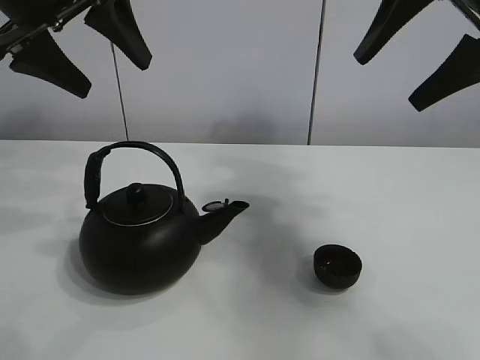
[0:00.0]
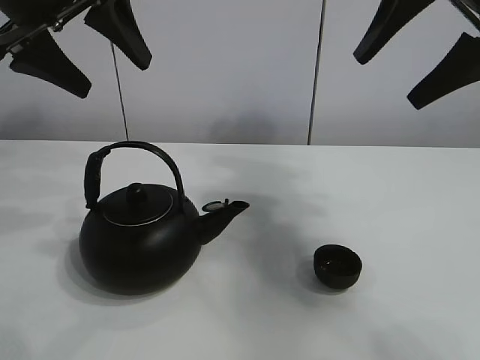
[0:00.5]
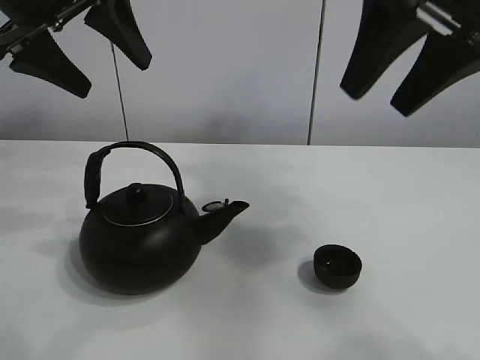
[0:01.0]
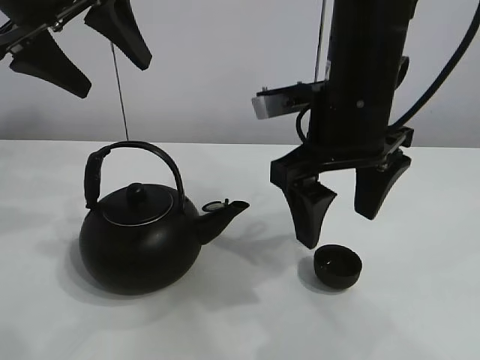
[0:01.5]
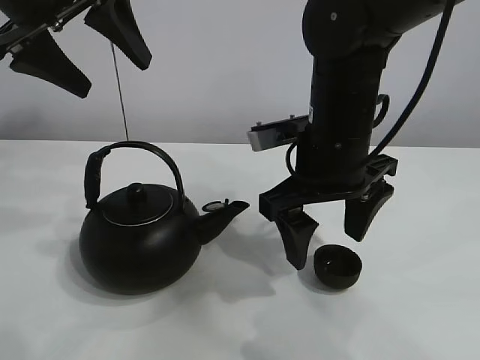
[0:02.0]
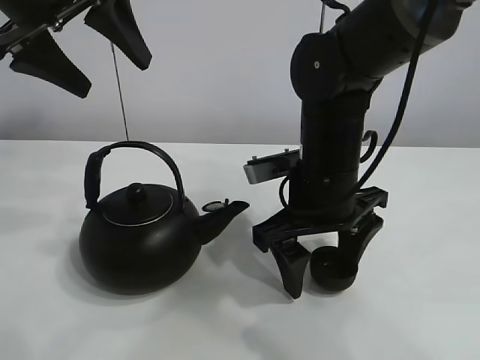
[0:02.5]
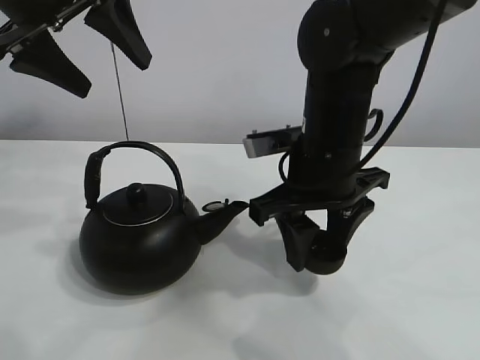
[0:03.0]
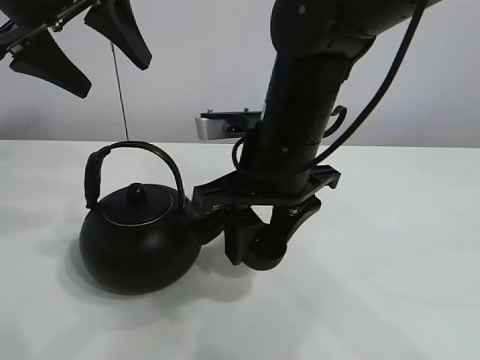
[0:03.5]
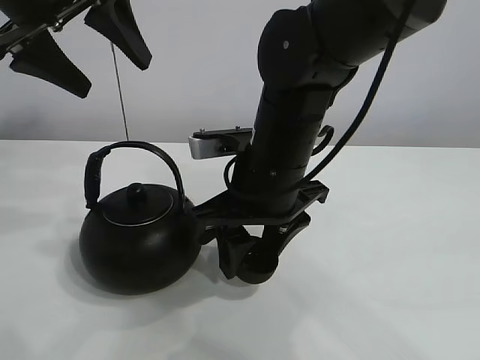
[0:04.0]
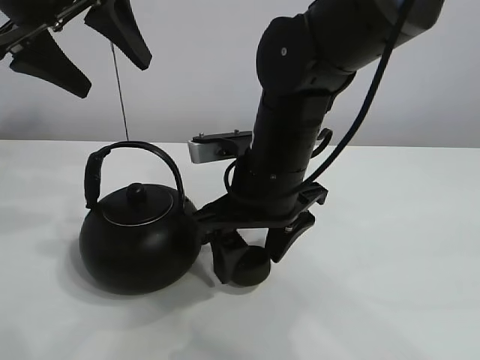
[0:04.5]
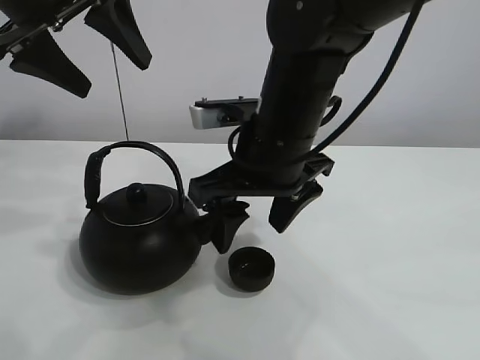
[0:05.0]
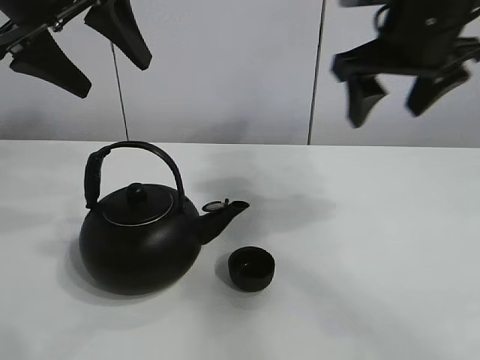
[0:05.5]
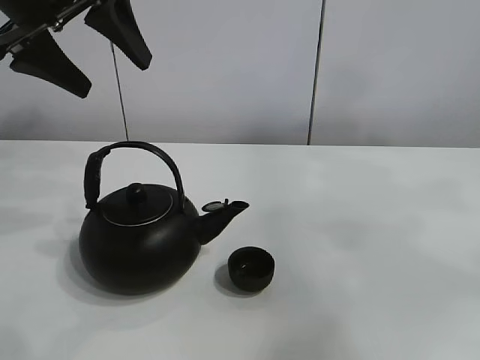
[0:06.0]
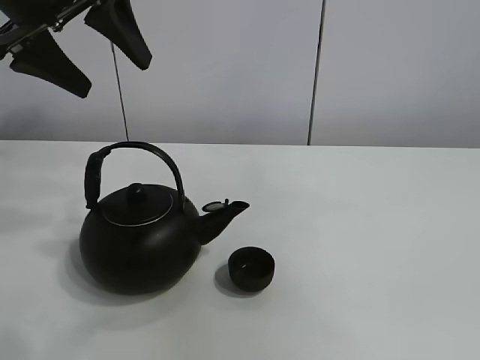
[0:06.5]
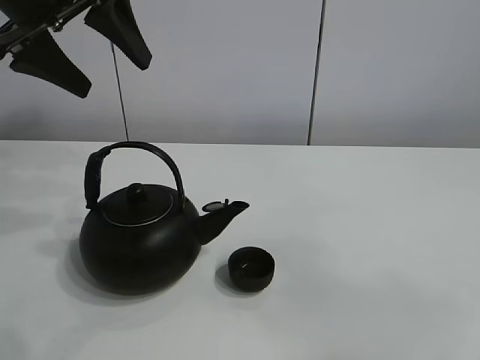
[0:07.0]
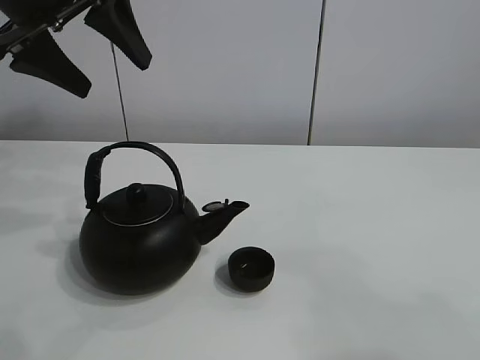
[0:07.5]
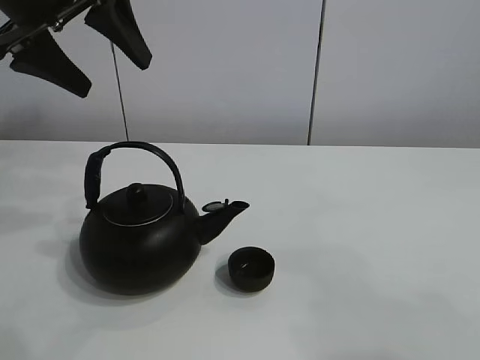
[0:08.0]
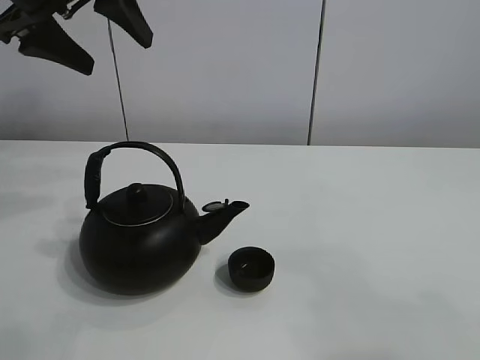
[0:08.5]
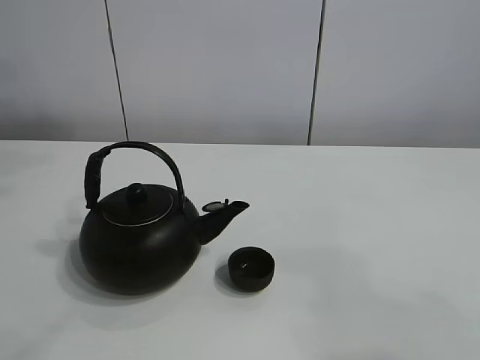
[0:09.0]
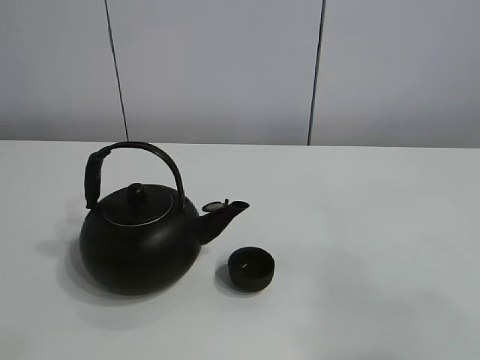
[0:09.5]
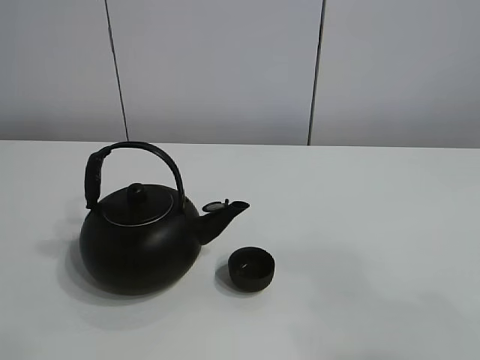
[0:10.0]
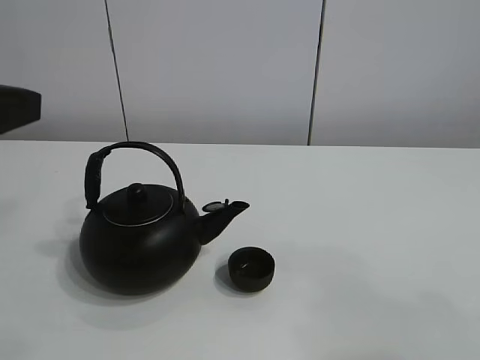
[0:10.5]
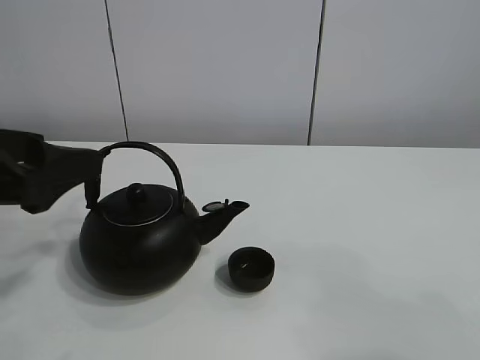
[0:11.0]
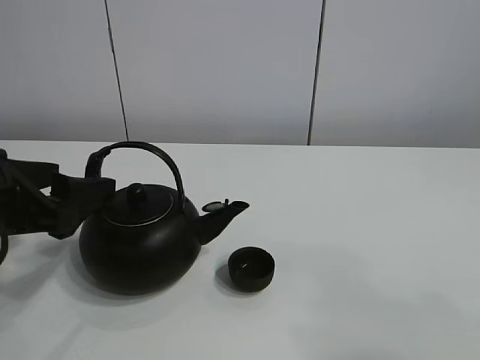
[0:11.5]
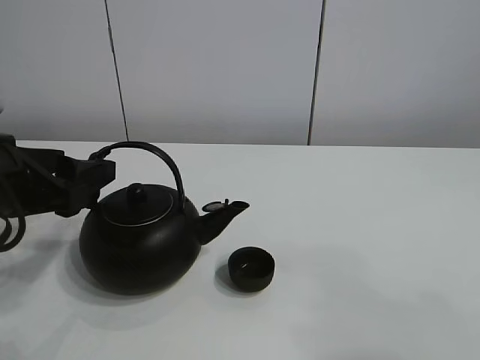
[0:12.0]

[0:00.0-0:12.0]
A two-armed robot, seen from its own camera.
Task of the whole recording: pour tea into the teacup.
Step, 0:00.0 to 0:02.5: Pick up the teacup with the right gripper.
Step, 0:03.0 to 0:04.5: Place the teacup in the center of view with the right gripper.
0:02.0 to 0:04.0: The right gripper travels to the left by some 5 cm, and closes its fingers.
0:04.0 to 0:06.0: The right gripper heads to the right and upward, covering roughly 50 cm, and opens its fingers.
0:06.0 to 0:08.0: The right gripper heads backward, downward and to the left, covering roughly 30 cm.
0:08.0 to 0:10.0: The left gripper is displaced backward by about 20 cm.
0:10.0 to 0:12.0: The left gripper moves downward, about 25 cm.

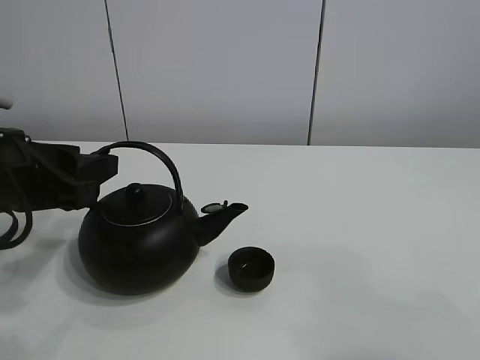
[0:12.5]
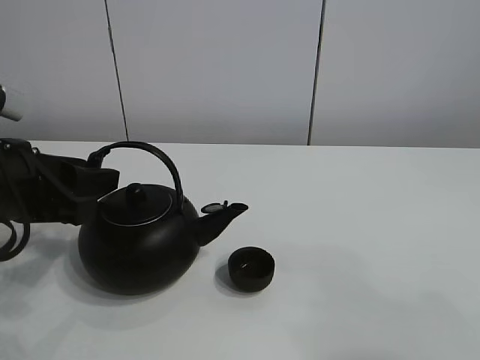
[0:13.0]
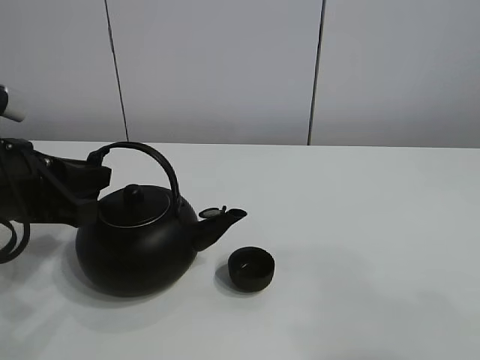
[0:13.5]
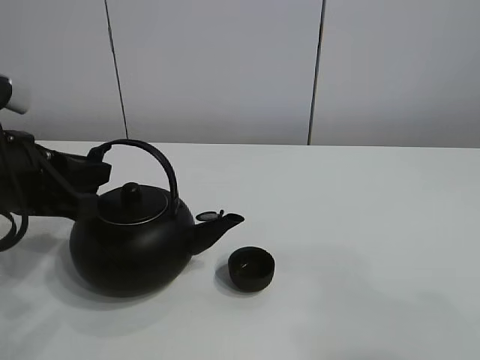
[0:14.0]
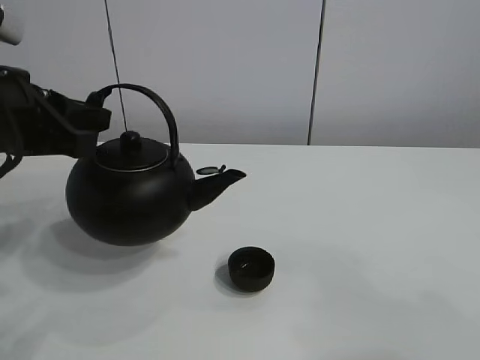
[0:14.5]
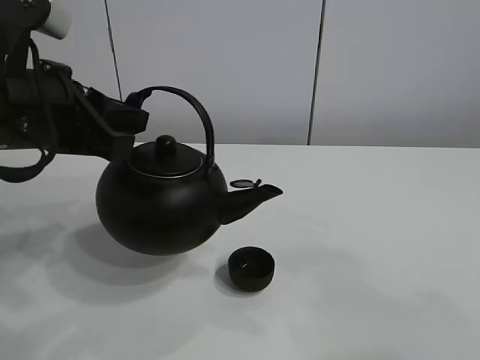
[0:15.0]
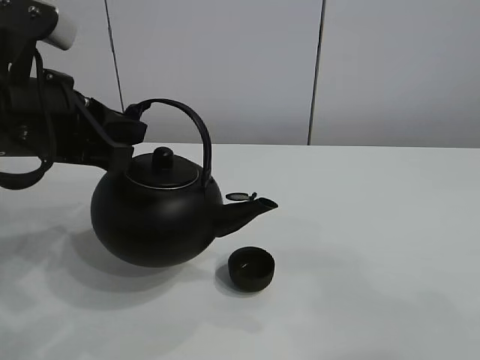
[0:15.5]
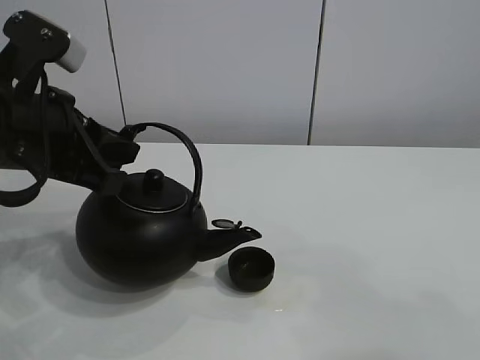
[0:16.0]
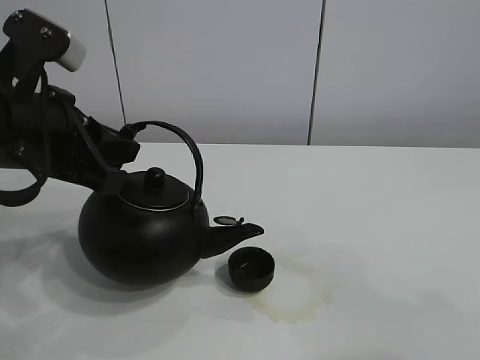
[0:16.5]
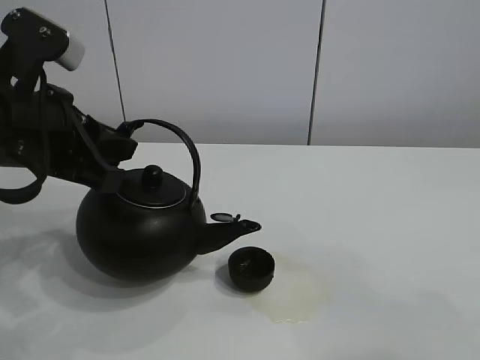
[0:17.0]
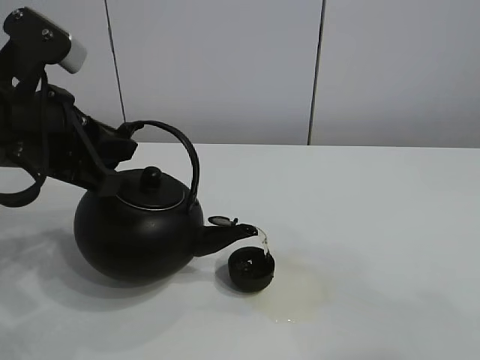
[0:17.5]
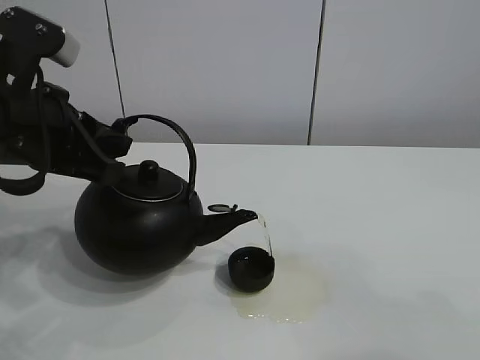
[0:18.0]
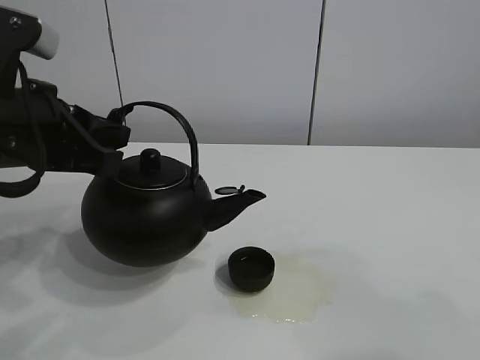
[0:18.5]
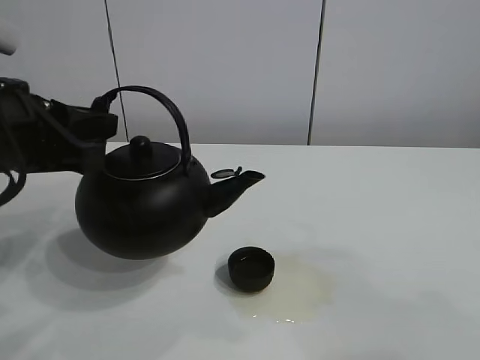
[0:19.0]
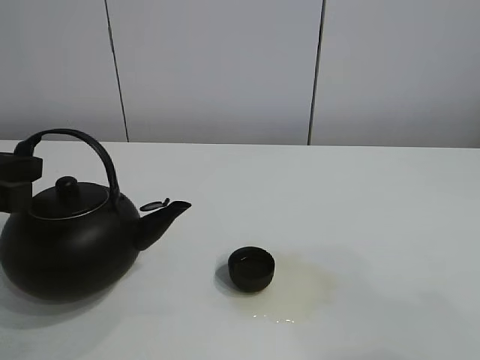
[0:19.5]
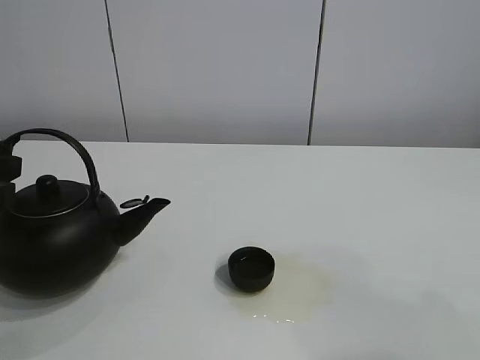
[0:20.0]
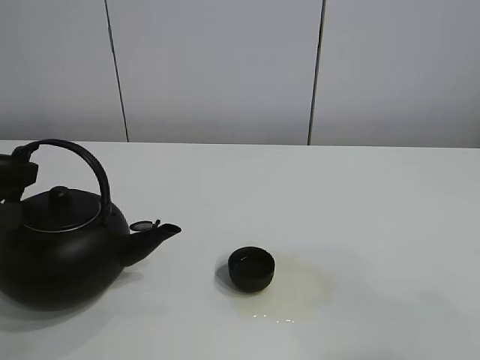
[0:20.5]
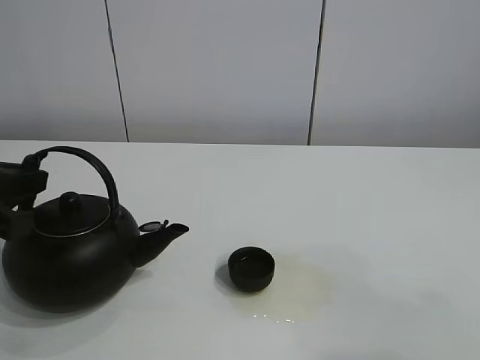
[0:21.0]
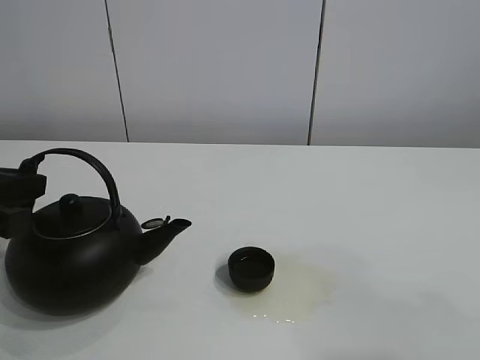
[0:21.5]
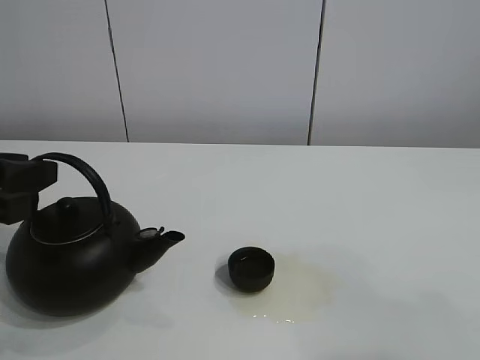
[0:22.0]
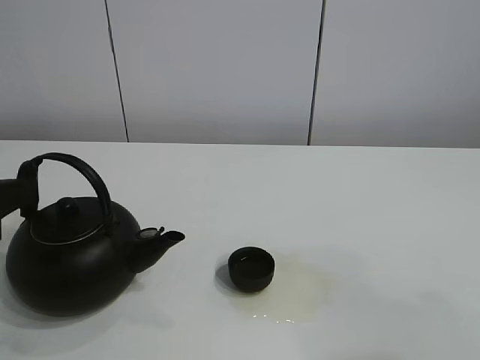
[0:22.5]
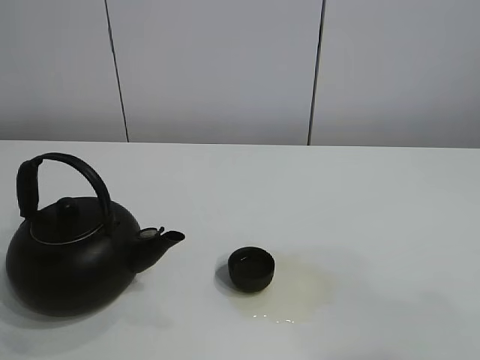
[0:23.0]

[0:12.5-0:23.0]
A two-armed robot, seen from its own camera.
Task of the whole recording: pour tea into the teacup.
Step, 0:14.5 to 0:18.0: Pour tea into the teacup with the left gripper.
0:12.5 to 0:14.5: The left gripper shifts some 5 cm upward, and closes its fingers.
0:14.5 to 0:19.0: The grippers make only small movements.
0:19.0 to 0:21.0: The left gripper shifts roughly 5 cm to the left.
0:21.0 to 0:23.0: The left gripper shifts by approximately 5 cm, and opens.

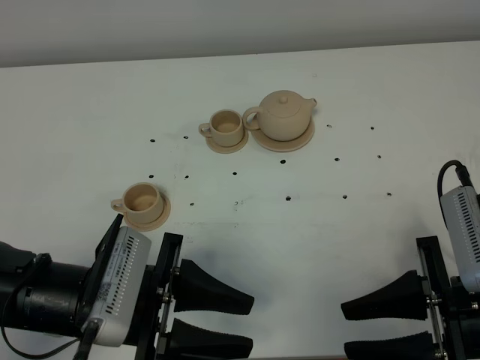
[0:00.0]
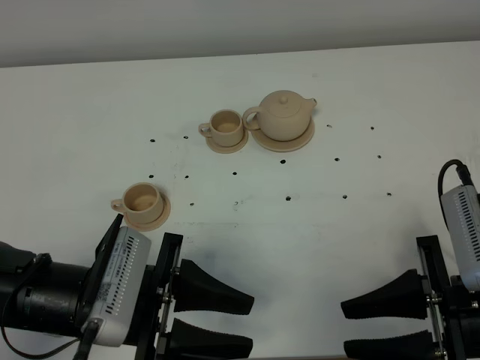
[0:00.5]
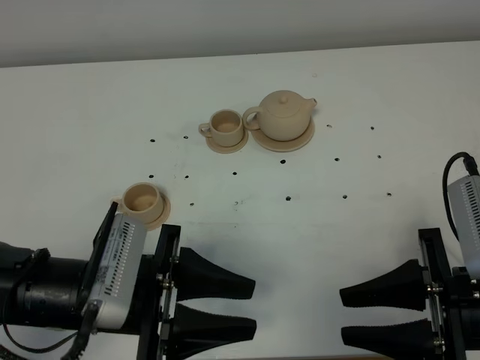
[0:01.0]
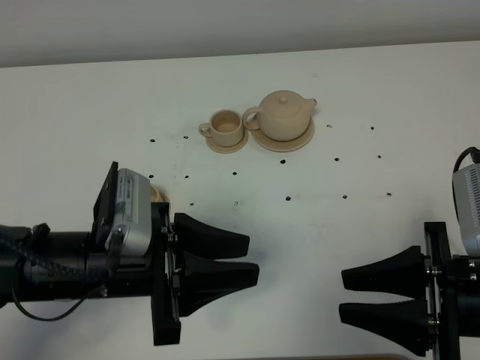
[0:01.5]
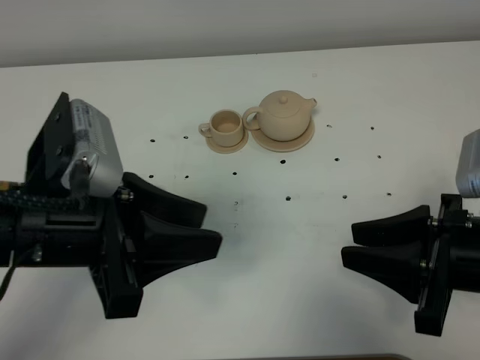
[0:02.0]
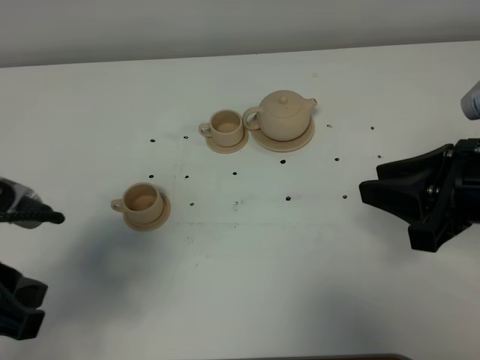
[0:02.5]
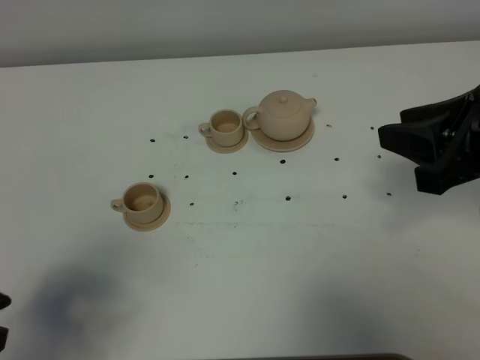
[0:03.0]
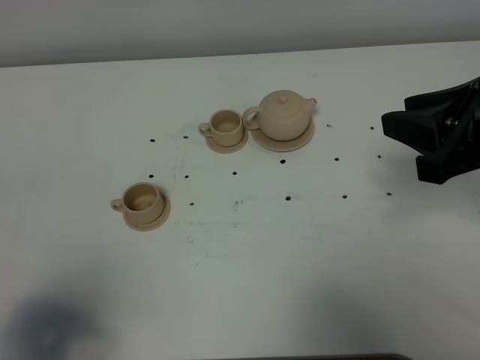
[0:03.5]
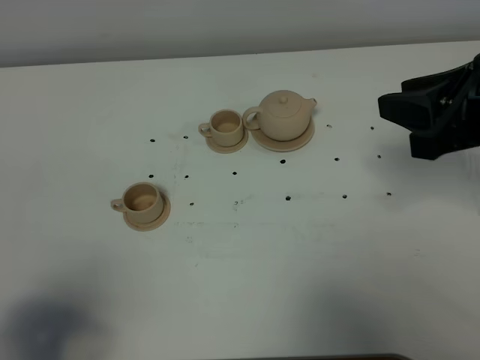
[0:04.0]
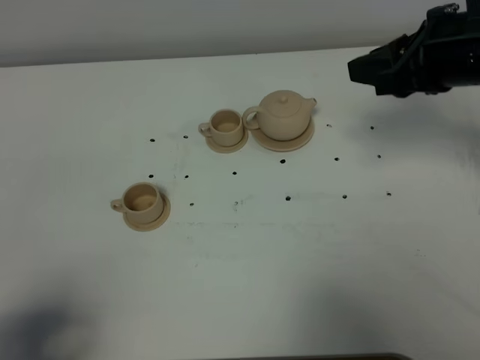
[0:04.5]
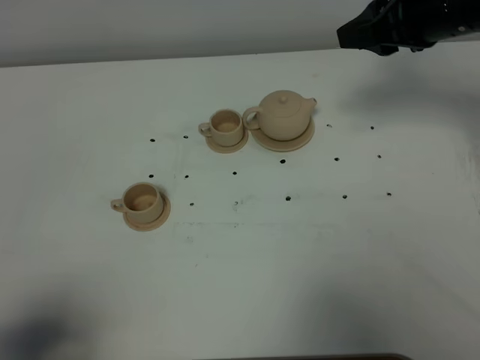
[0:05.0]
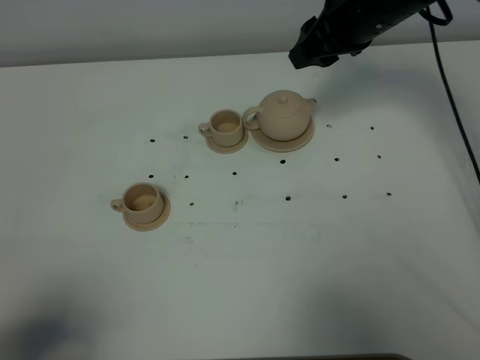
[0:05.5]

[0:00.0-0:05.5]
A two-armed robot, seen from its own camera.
Task of the whole recording: grasp the brown teapot and pour the tea into the two brown teacups one by one, put the brown teapot back in its original place.
0:00.0 to 0:02.0: The left gripper goes about 10 cm upward.
0:02.0 to 0:03.5: The left gripper goes approximately 20 cm to the left and backward; the right gripper heads upward and forward, covering roughly 10 cm.
0:03.5 to 0:05.5: The right gripper goes roughly 25 cm forward and to the left.
